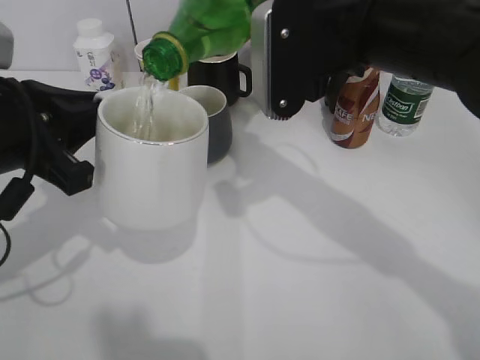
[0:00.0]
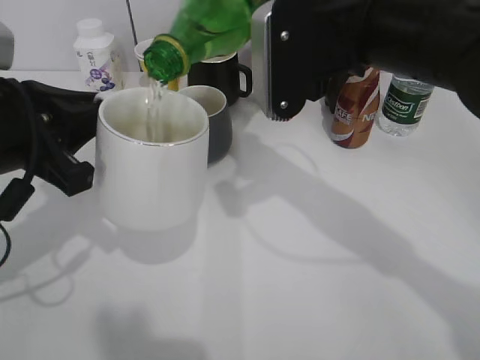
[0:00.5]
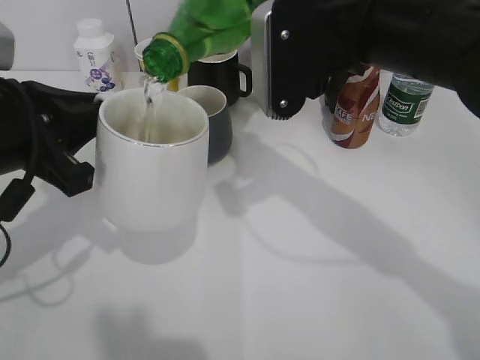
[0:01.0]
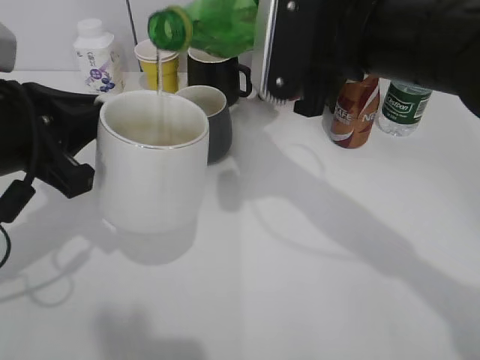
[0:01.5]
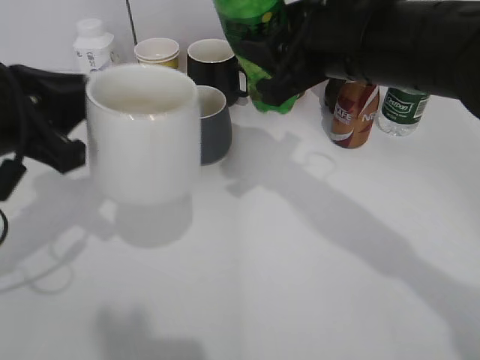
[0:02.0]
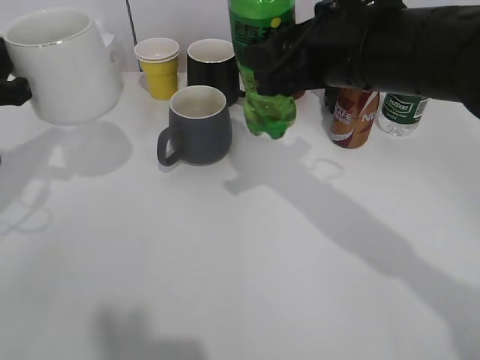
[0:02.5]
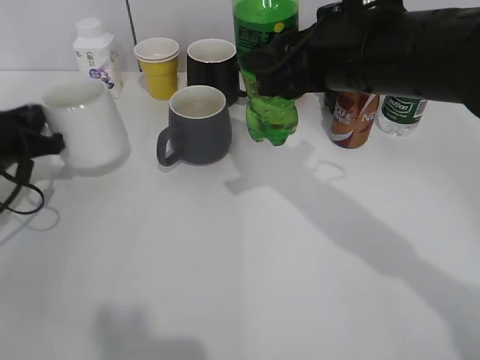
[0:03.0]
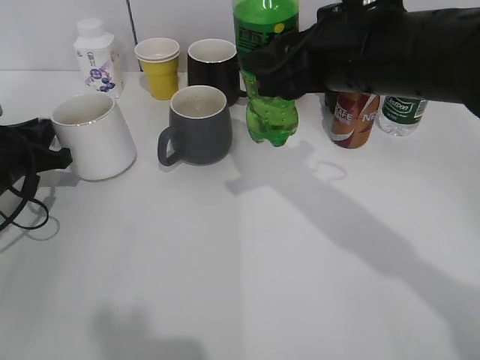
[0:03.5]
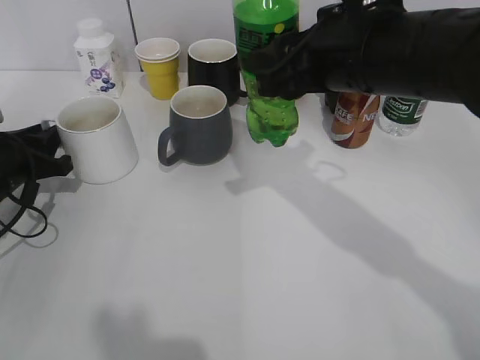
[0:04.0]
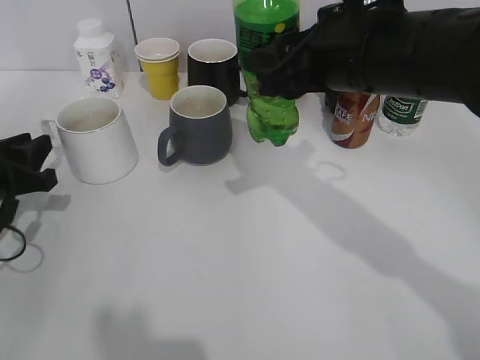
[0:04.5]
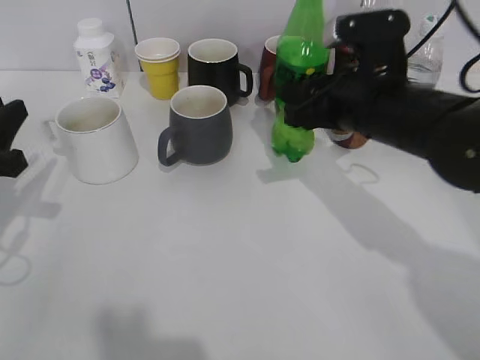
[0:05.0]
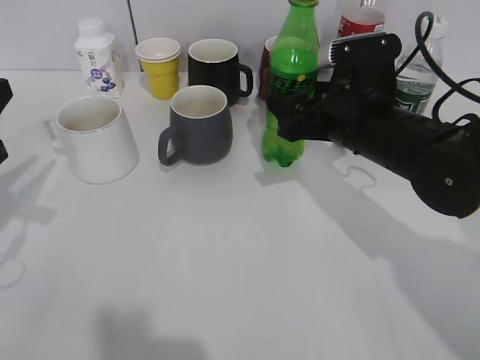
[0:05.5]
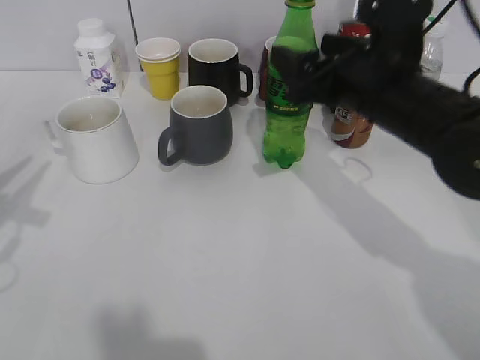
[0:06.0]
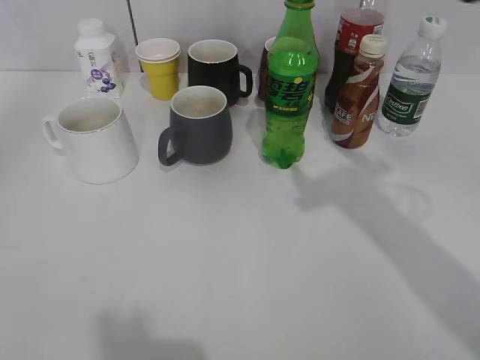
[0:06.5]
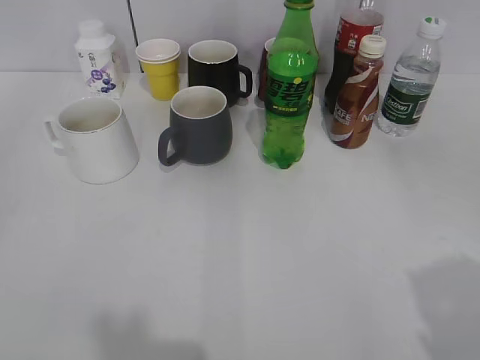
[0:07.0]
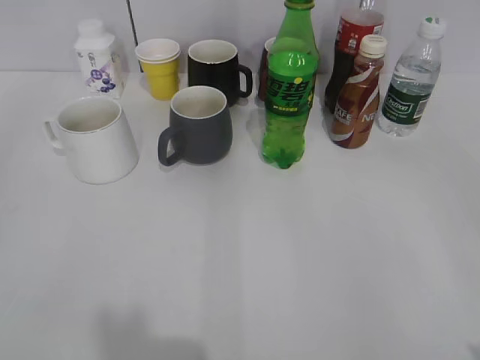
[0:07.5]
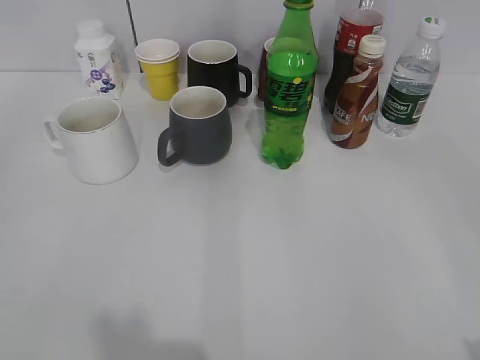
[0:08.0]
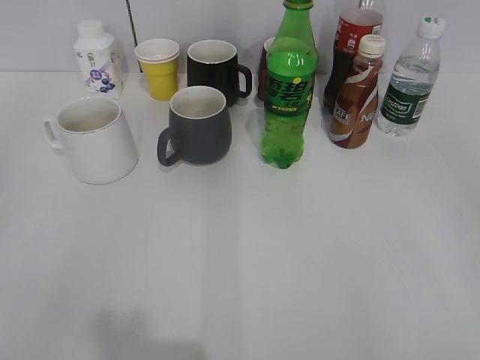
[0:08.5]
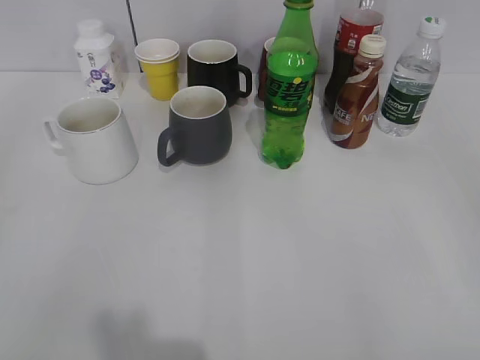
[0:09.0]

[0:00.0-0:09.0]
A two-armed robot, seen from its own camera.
Step, 0:02.0 to 0:04.0: Place the white cup on the table with left gripper.
Step, 0:04.5 to 0:05.5: Place the sprite bottle on the table with right gripper.
0:02.0 to 0:04.5: The left gripper shifts about 20 cm downward, to the left and forward, and opens.
0:04.5 to 0:07.0: The right gripper moves backward and to the right, about 25 cm, and opens up; the left gripper travels backward and upward by approximately 35 cm, and opens up.
